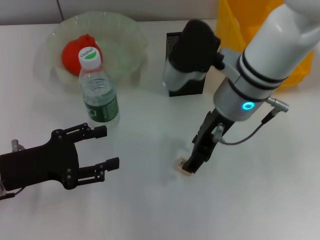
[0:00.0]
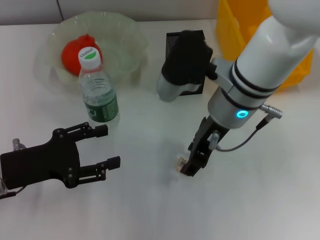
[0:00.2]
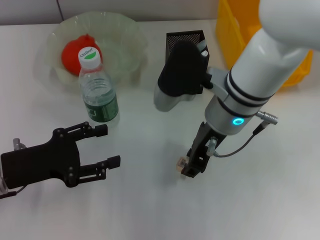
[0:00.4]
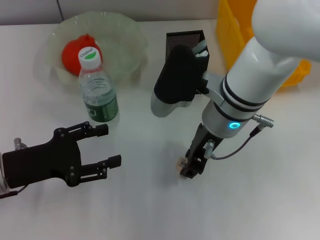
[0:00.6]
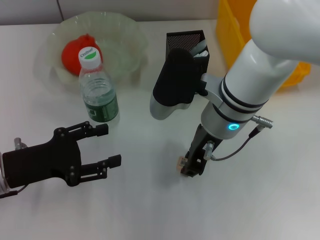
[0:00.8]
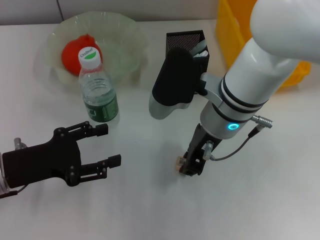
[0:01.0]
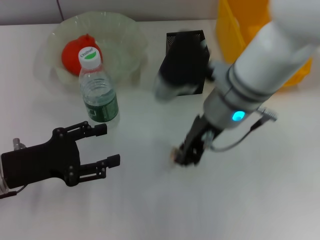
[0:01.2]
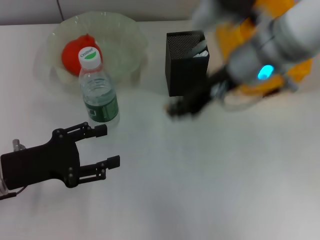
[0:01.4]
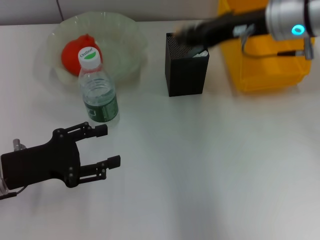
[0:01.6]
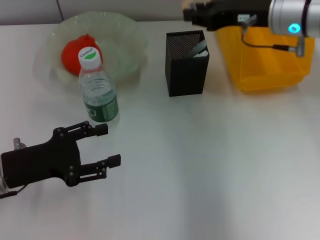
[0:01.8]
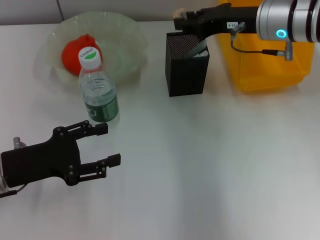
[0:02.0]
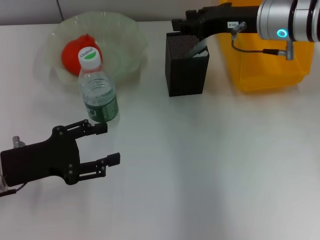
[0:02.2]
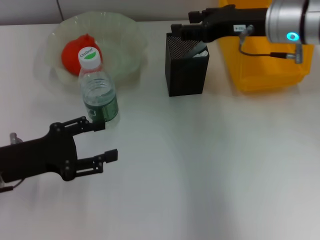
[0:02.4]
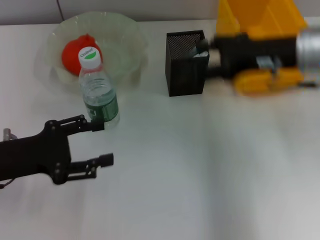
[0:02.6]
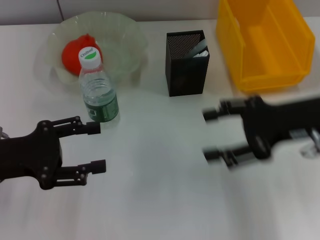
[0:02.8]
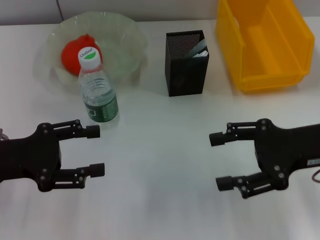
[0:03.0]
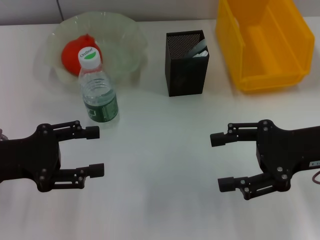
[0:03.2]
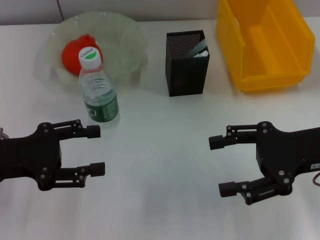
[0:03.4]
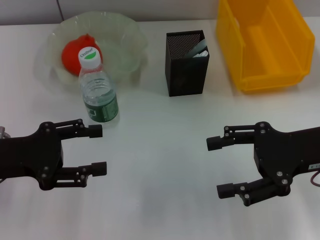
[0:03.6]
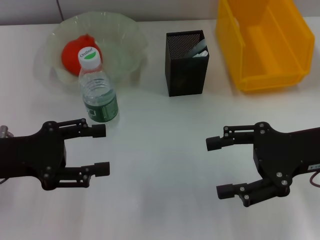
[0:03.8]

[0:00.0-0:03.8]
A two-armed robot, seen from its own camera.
Step, 1.0 to 2.0 s: Put the eraser into the pen holder with the right hand.
0.0 to 1.2 s: The right gripper closes.
1.2 to 2.6 s: The right gripper heads to the right, covering some 15 cm, and opens.
2.6 to 3.8 s: The right gripper is displaced backward by about 10 cm.

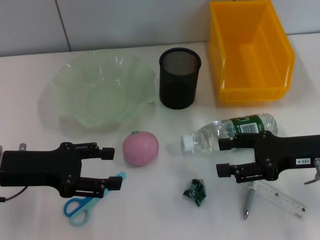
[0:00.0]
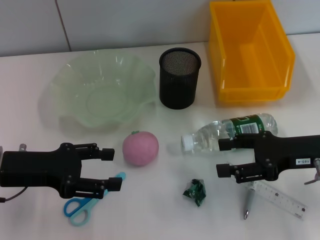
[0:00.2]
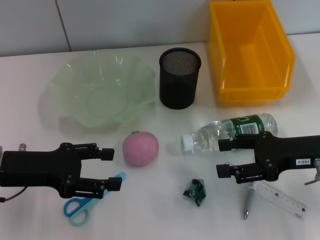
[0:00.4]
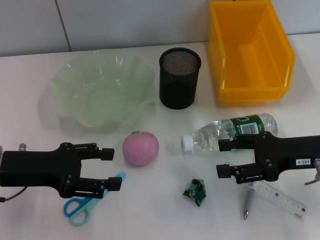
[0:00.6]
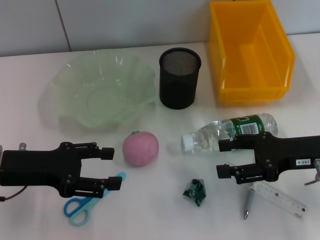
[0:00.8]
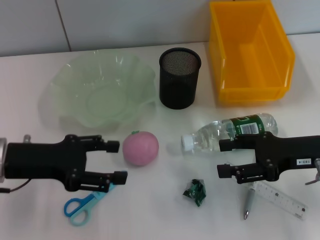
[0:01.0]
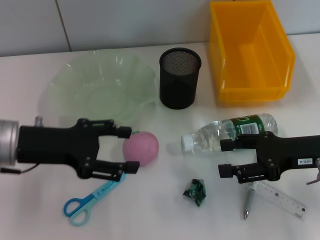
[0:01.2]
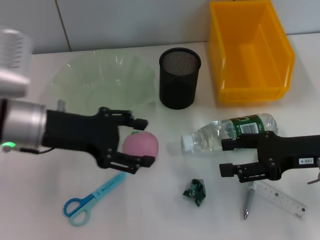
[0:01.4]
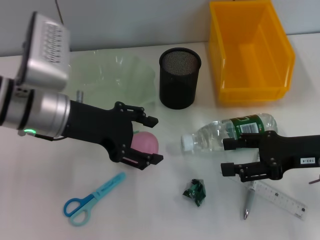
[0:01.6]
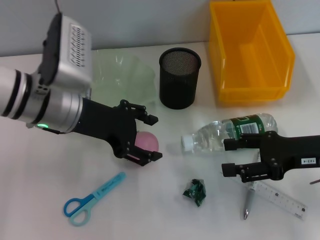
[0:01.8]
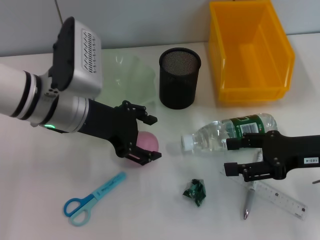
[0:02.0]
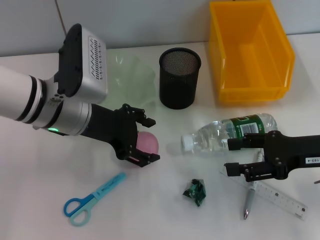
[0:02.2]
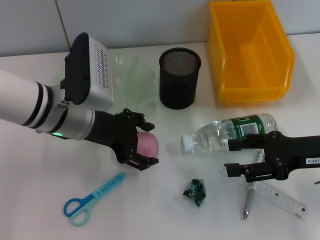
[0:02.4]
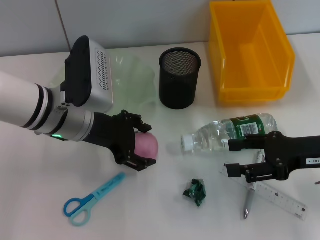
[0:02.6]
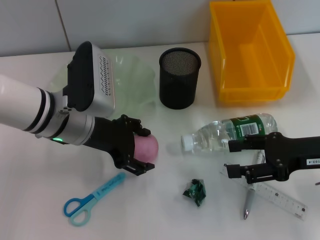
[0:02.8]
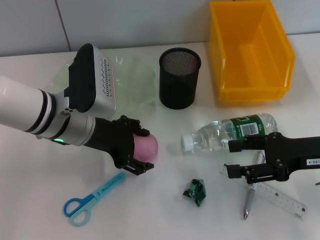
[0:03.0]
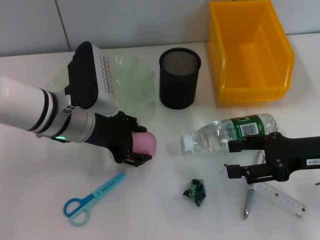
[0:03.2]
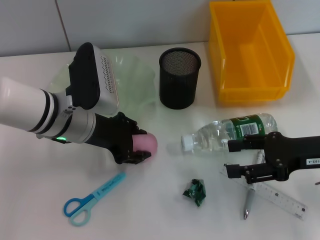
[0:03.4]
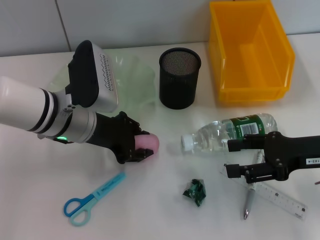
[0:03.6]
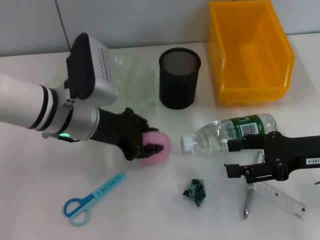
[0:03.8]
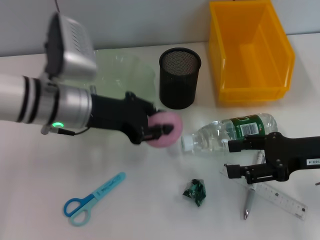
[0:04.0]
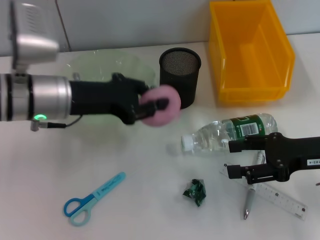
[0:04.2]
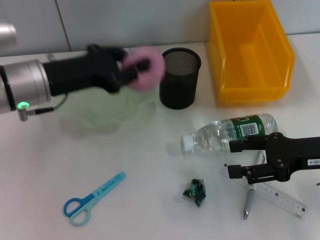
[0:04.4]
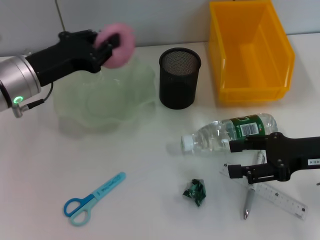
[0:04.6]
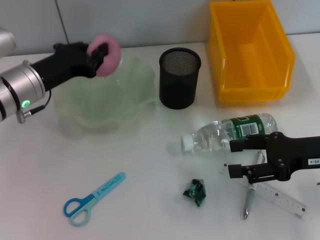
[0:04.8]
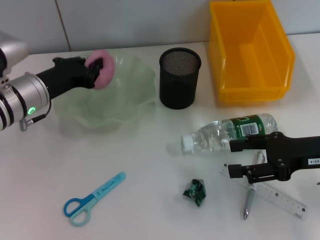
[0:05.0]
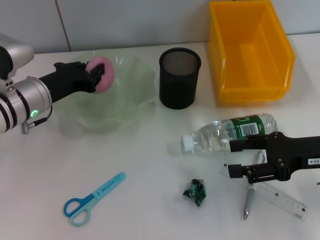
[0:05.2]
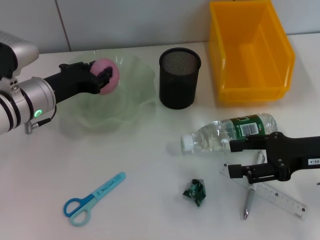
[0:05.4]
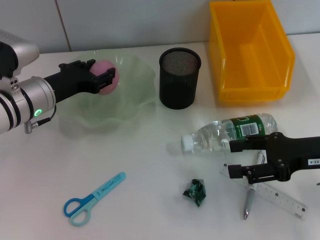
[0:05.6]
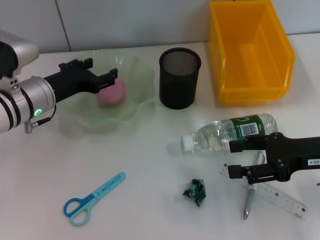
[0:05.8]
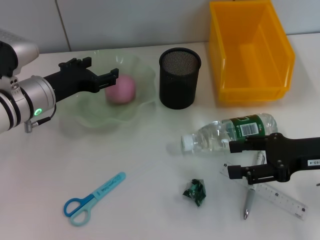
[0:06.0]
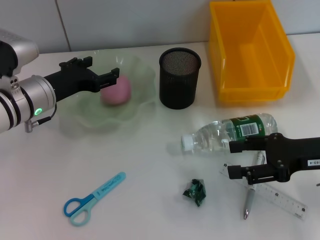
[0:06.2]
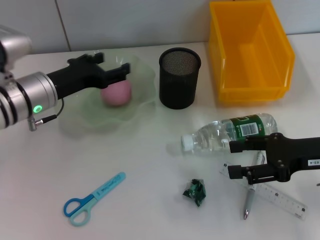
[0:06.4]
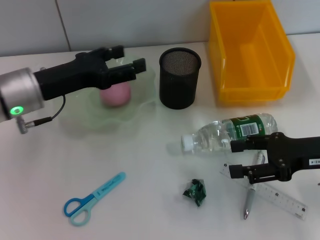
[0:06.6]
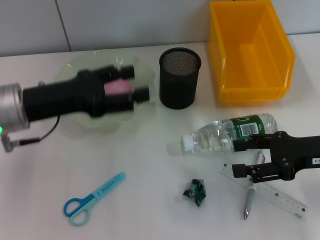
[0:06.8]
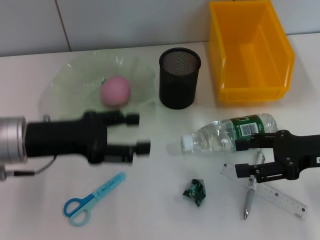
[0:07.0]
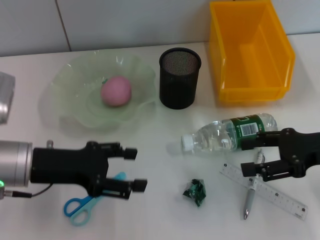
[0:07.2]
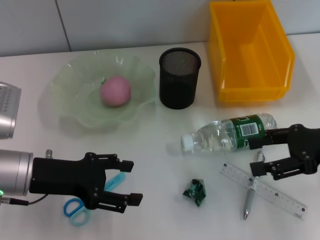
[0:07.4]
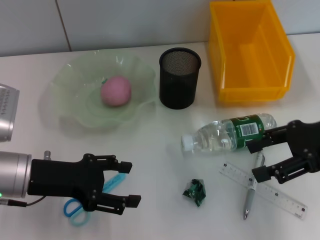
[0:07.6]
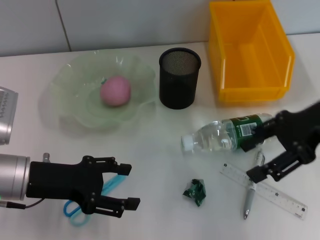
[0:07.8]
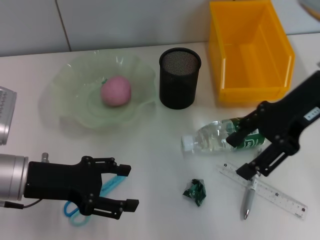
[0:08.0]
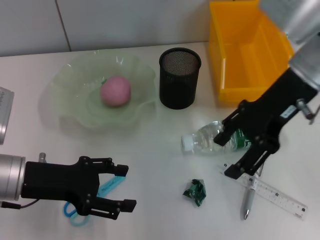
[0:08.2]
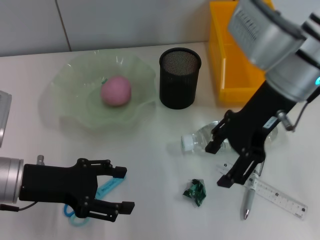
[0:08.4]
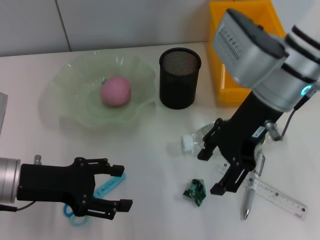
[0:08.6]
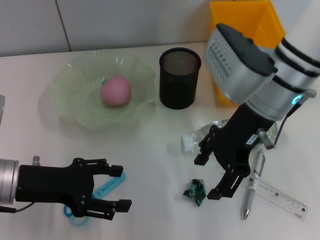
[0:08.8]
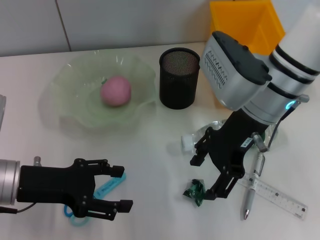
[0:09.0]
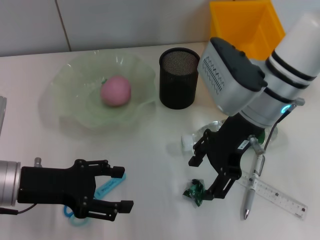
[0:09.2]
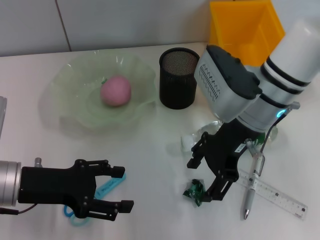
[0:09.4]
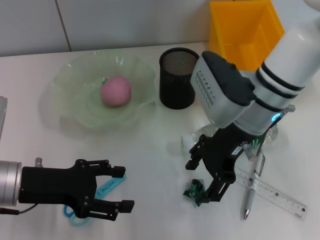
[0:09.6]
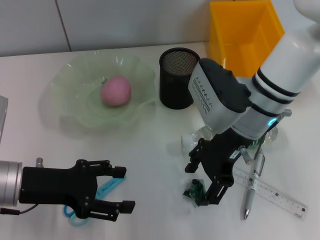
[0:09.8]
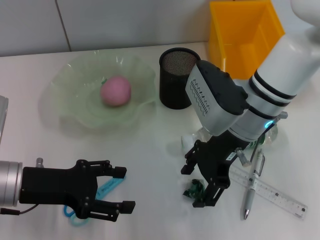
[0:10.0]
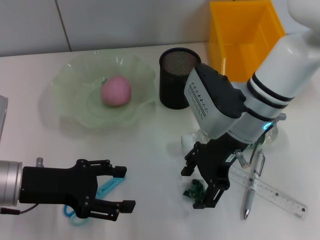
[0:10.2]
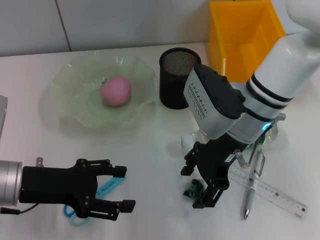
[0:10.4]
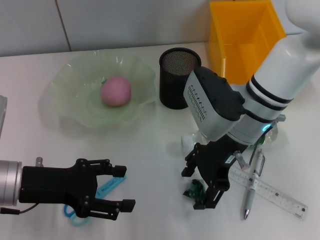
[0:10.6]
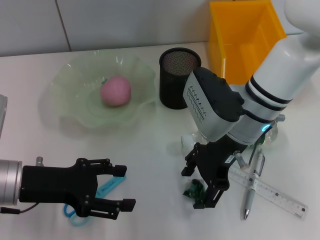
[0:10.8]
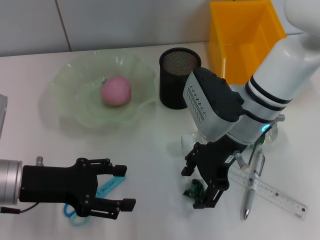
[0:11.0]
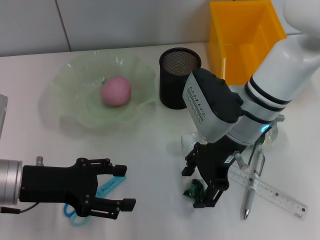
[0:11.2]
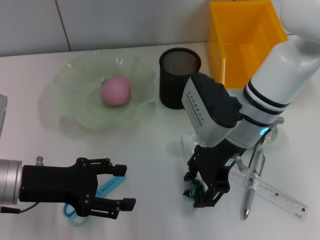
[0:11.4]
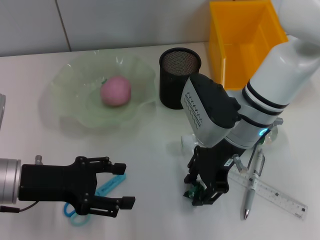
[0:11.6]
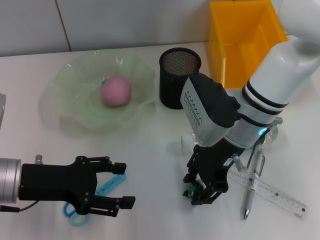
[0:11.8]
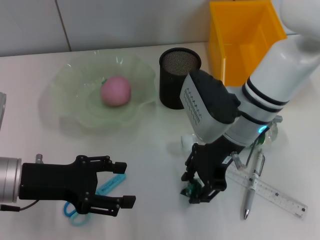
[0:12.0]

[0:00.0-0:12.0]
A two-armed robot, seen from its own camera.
Step, 0.0 to 3.4 s: Grab the peach with the left hand.
Step, 3.8 to 5.6 s: Place the peach into the fruit bowl with the left hand.
Step, 5.8 to 11.6 s: Grab the plastic with the right hand.
0.0 to 1.6 s: The left gripper moves to the right, forward and upward, approximately 10 cm.
1.6 to 3.0 s: The left gripper moves roughly 5 cm.
3.0 to 4.4 s: The left gripper heads to the left, covering about 5 cm, and closes.
4.4 to 6.0 s: The left gripper goes roughly 5 cm downward, and opens up.
6.0 to 7.6 s: The left gripper travels backward by some 10 cm; the right gripper is displaced upward by about 5 cm.
7.6 to 9.0 s: The right gripper travels to the left by roughly 15 cm.
9.0 to 10.4 s: The grippers make only small movements.
10.4 to 12.0 s: The right gripper closes its fingers.

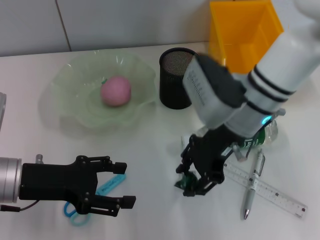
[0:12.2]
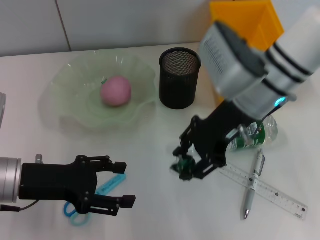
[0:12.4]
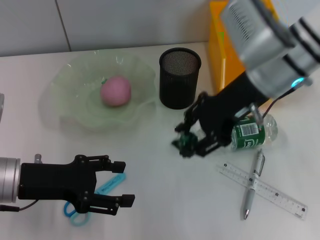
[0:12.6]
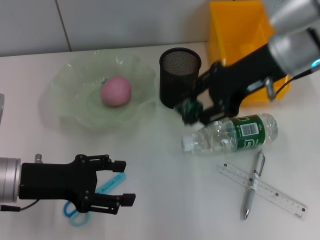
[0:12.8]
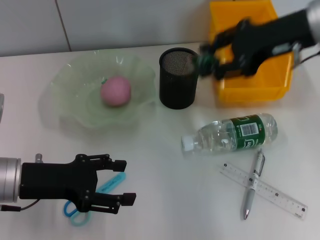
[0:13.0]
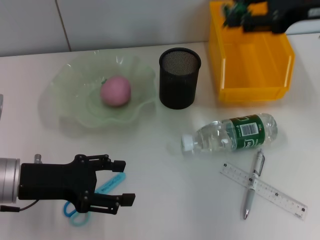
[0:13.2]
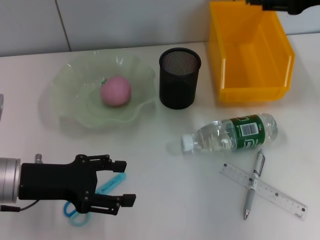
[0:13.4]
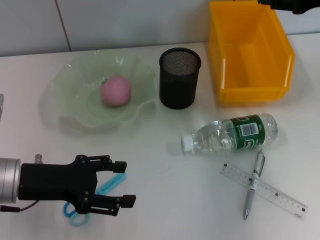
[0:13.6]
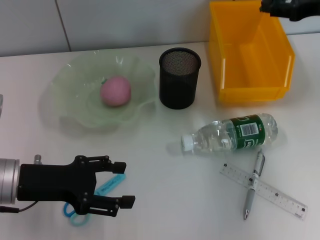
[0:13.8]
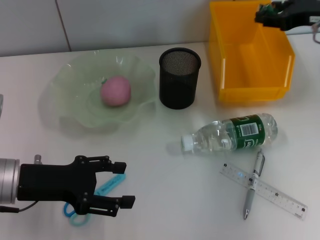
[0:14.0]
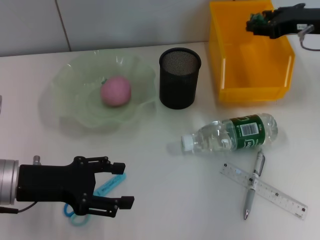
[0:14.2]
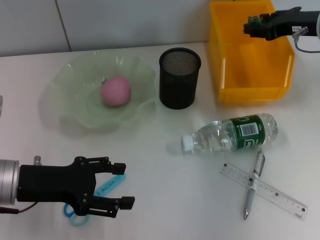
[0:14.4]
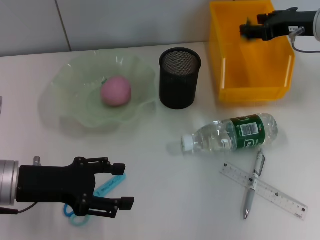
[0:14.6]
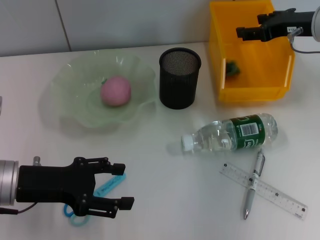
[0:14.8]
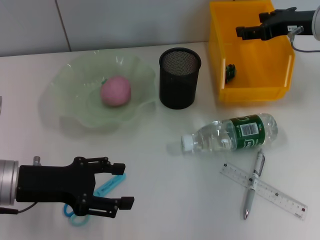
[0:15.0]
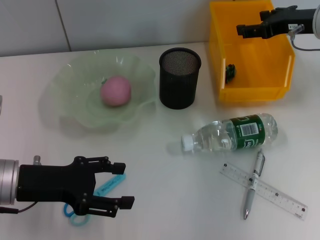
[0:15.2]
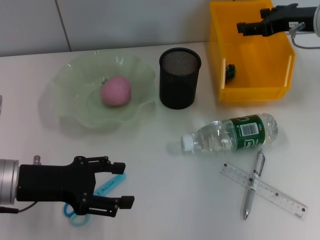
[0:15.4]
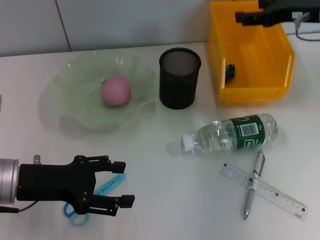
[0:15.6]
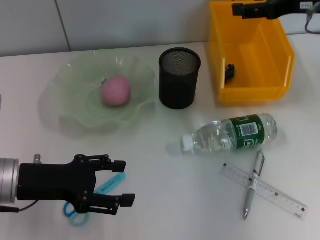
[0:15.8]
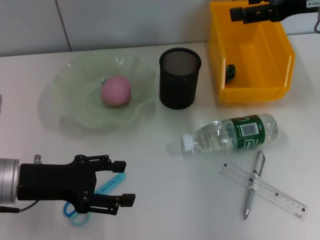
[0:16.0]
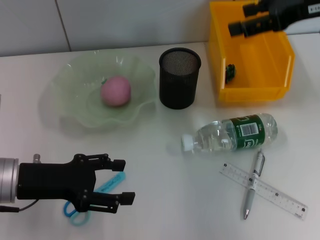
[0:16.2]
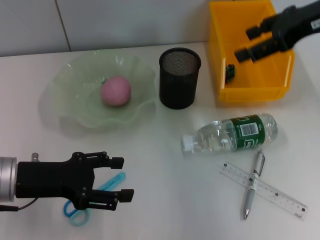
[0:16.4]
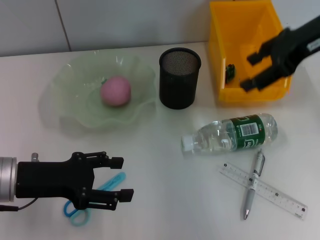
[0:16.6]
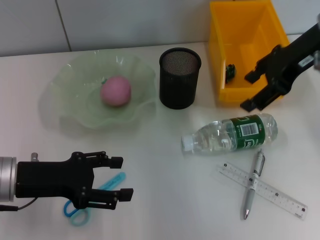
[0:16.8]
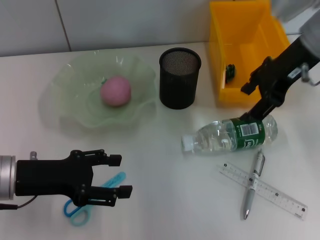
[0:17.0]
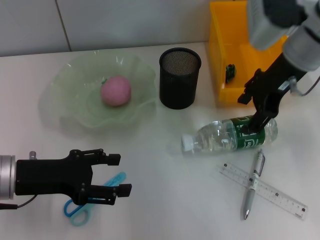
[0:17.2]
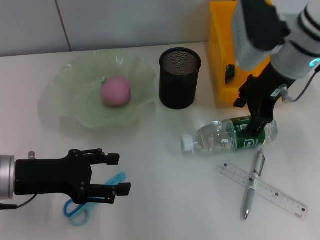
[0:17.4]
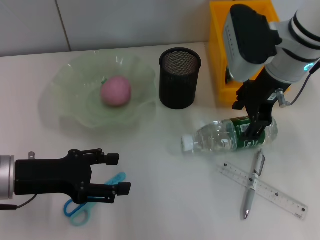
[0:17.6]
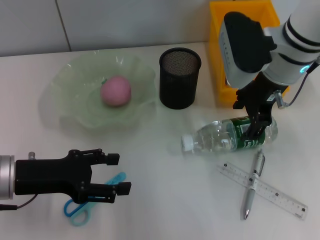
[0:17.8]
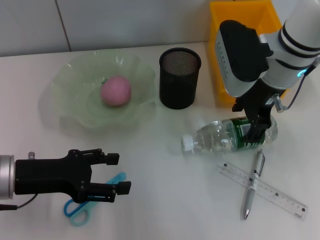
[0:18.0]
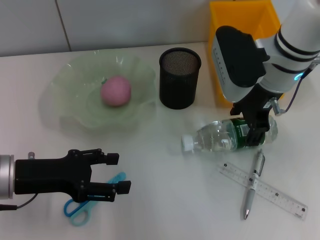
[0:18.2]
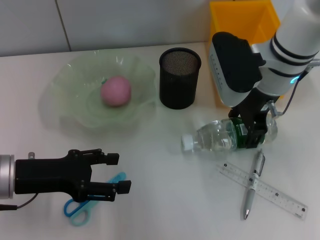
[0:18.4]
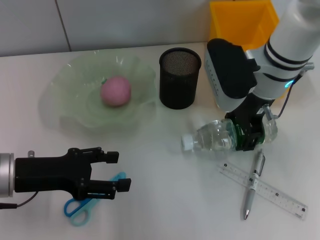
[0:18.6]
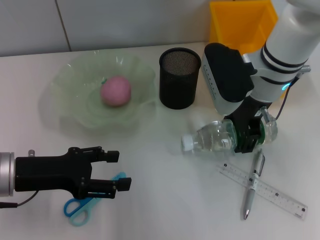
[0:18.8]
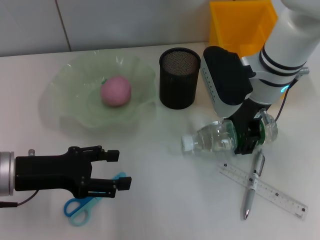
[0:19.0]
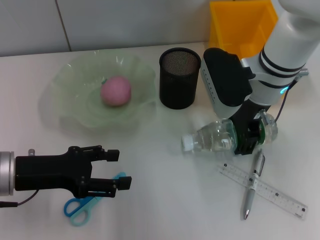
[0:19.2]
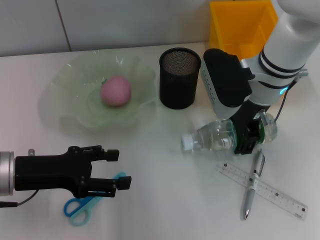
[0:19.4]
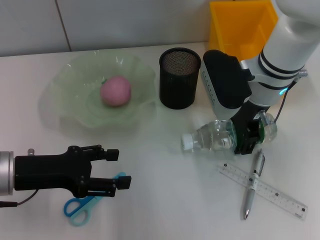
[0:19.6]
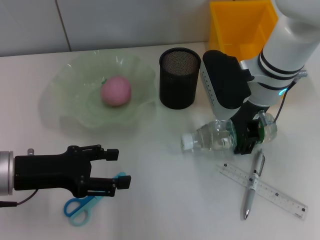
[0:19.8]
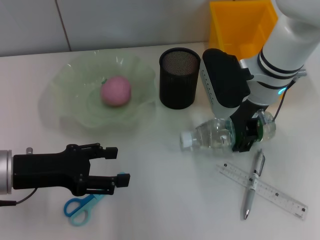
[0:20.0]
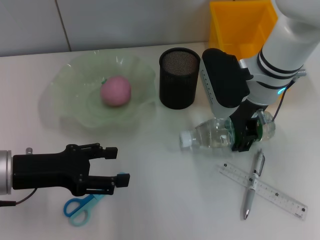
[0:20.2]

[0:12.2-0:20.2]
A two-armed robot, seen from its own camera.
Step, 12.2 to 15.2 s: Place the plastic into the trash can with the right hand.
Step, 15.4 to 20.0 s: Grab the water bottle with the right hand.
12.2 to 13.8 s: The right gripper moves to the right, approximately 20 cm.
13.8 to 15.4 s: The right gripper ends up some 5 cm from where it was, and opens its fingers.
15.4 to 17.0 s: The right gripper travels to the left and upward by roughly 10 cm.
17.0 to 18.6 s: The right gripper heads downward and to the left, covering some 10 cm.
18.6 to 20.2 s: The grippers make only small movements.
